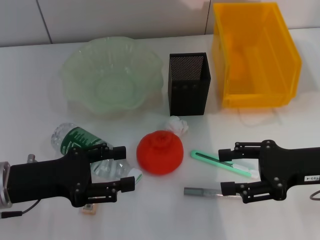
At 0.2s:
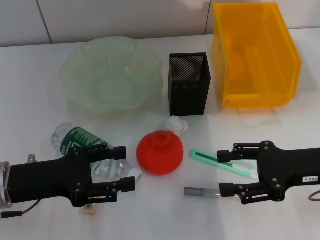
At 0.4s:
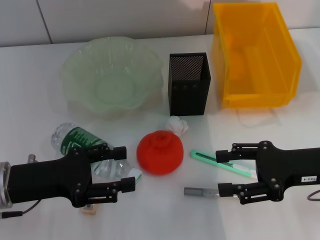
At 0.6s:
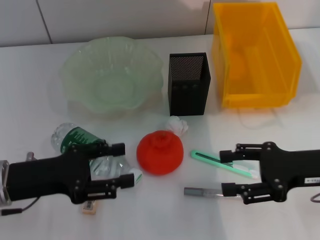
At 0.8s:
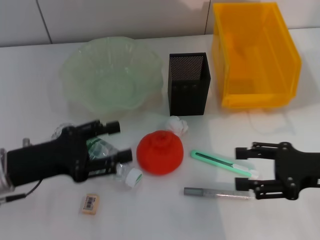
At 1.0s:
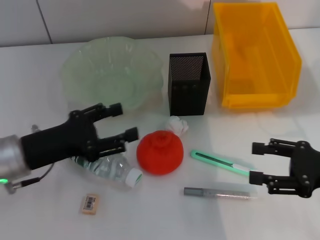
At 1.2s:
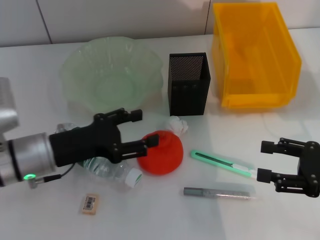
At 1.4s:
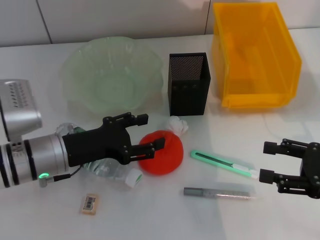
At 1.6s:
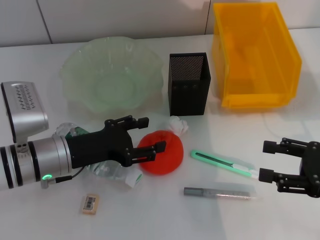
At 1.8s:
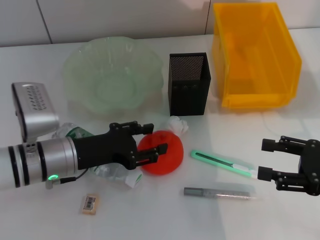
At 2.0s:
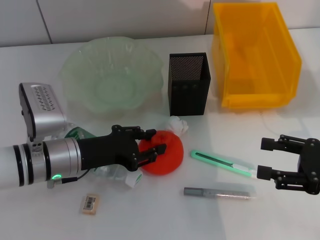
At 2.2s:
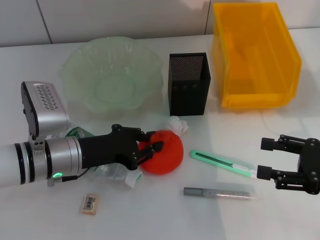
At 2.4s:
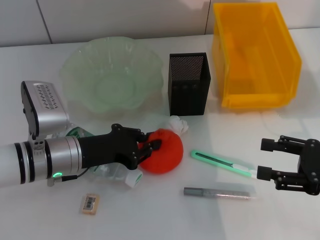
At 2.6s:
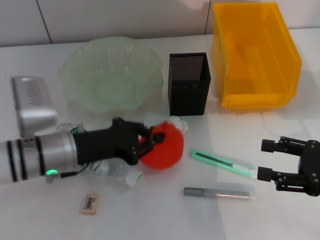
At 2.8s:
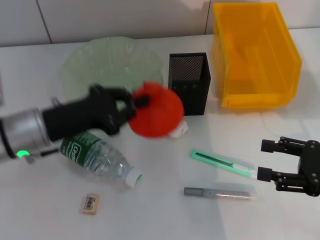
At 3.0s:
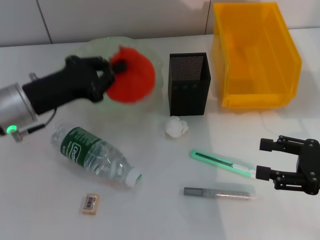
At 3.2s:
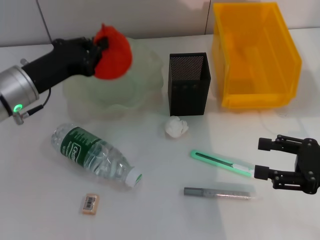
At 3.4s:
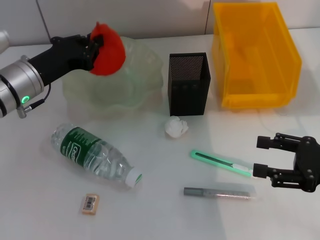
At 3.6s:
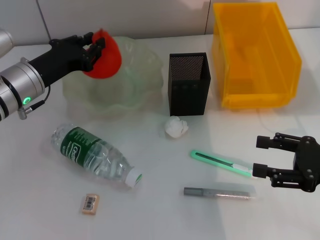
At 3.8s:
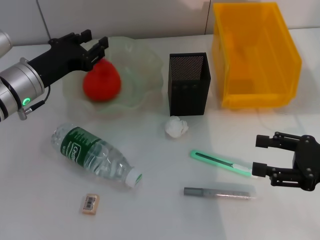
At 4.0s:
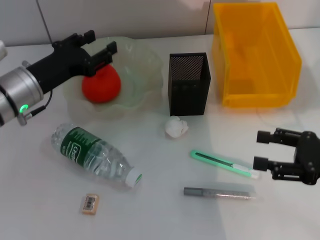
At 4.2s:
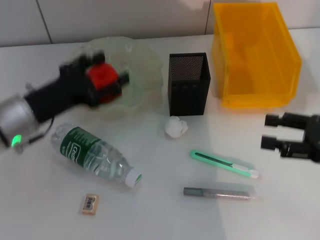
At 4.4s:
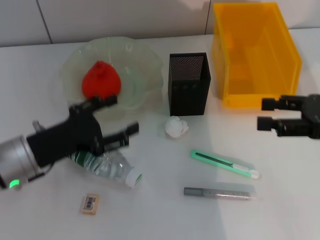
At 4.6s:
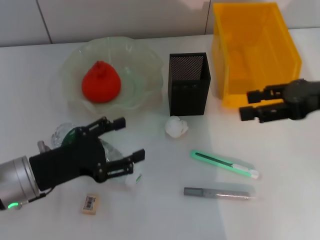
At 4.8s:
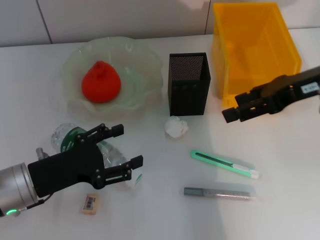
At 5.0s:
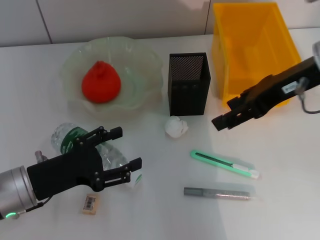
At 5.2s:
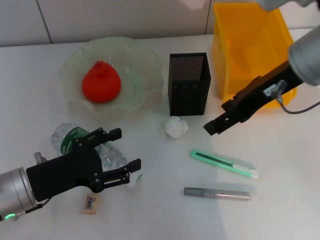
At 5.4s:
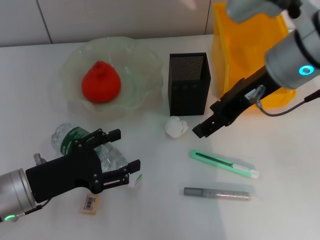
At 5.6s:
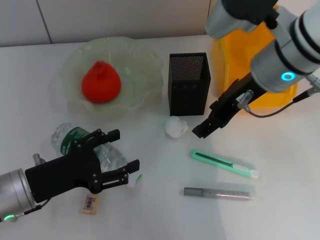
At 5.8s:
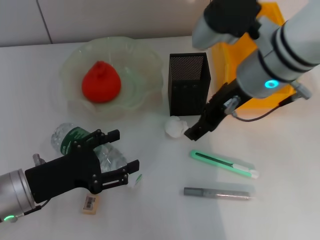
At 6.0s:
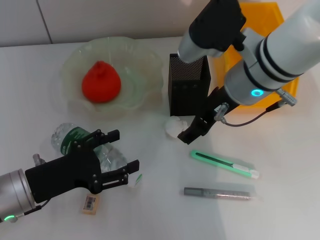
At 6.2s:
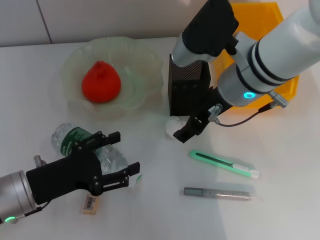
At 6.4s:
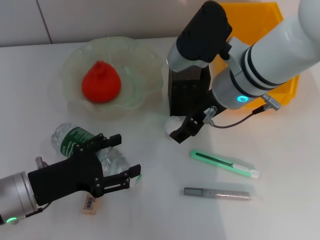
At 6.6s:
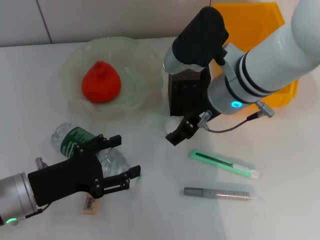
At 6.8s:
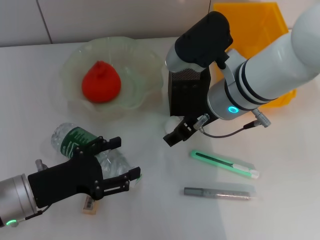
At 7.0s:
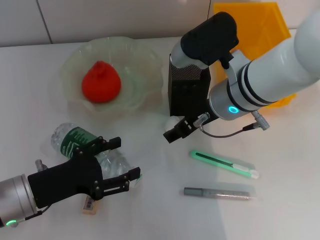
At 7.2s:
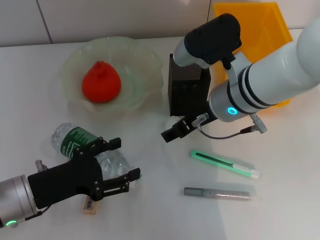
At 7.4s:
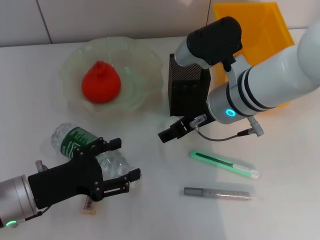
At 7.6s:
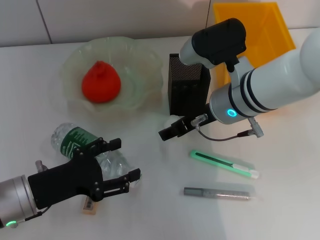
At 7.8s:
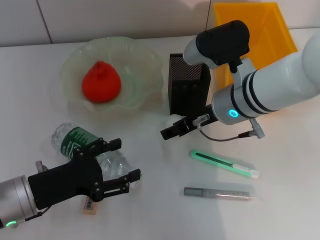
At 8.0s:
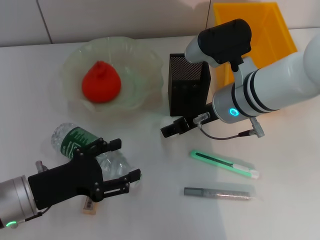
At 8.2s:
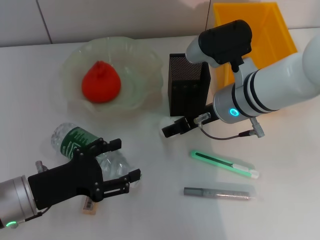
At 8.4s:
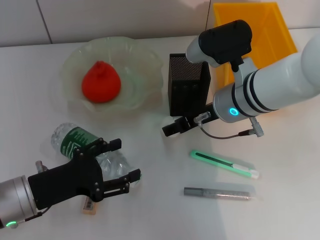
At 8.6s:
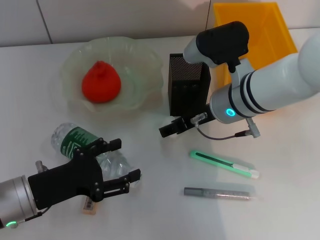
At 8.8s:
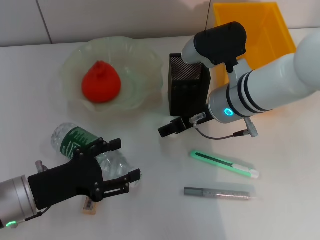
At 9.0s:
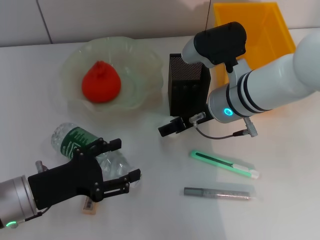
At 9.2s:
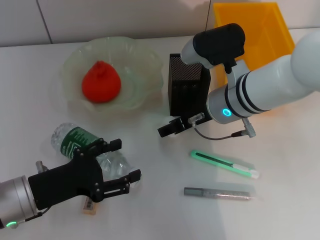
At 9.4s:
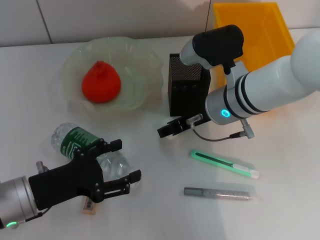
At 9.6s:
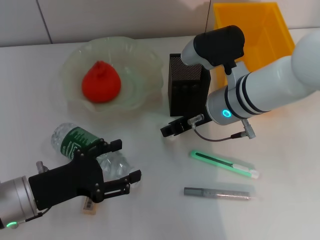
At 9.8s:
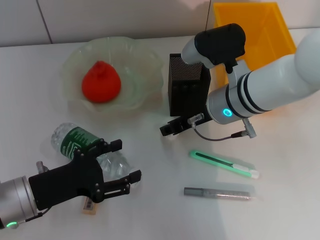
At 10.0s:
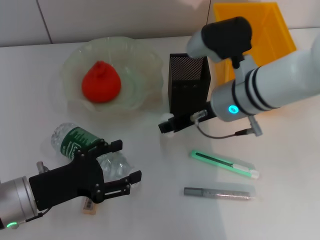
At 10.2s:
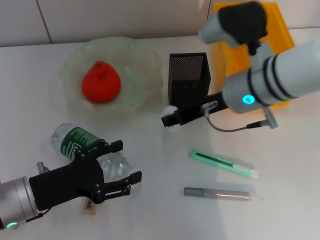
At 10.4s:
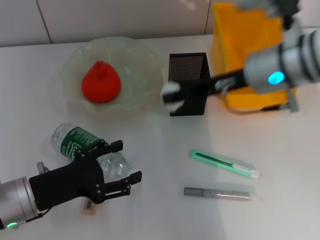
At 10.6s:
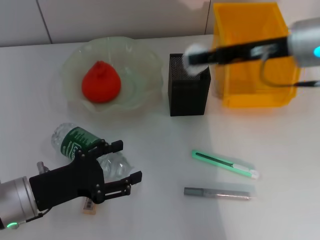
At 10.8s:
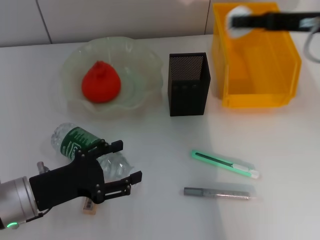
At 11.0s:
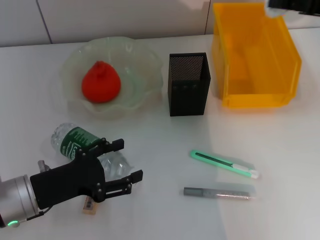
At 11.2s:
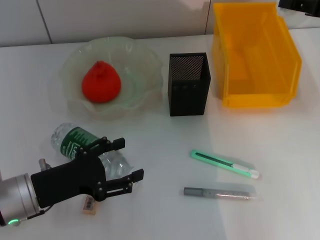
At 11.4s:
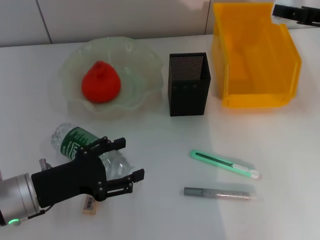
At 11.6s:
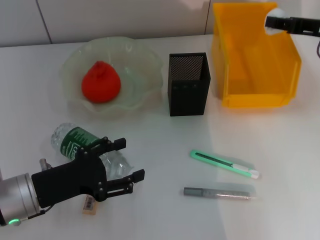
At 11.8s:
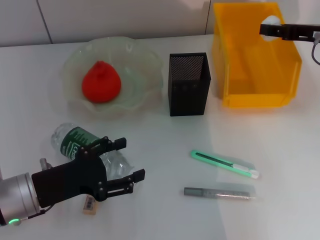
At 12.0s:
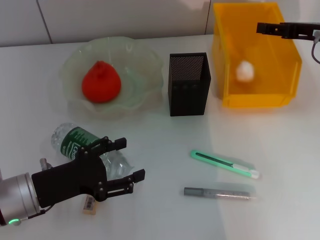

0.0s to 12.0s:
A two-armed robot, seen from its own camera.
Step, 0.0s to 2.2s: Grab the orange with the left hand.
Step, 2.6s to 3.8s: Place the orange into the fruit bowl with the left hand.
Step, 4.0s to 9.6s: Grab the paper ball with the right hand.
0.0s to 1.6s: Both grippers travel together to the right, some 5 cm.
1.6s to 3.0s: The left gripper goes some 5 cm upward, and closes its fingers.
3.0s to 4.4s: The left gripper heads backward, covering about 5 cm, and opens up, while the right gripper moves upward and forward, some 10 cm.
4.4s to 6.0s: The right gripper goes some 20 cm to the left.
6.0s to 7.6s: The right gripper is displaced downward by approximately 5 cm.
7.6s to 9.0s: The grippers move only a little.
9.0s to 10.4s: The right gripper goes about 10 cm upward, and closes up.
10.4s to 12.0s: The right gripper goes roughly 15 cm to the right.

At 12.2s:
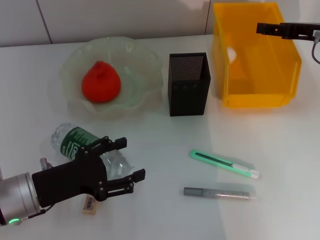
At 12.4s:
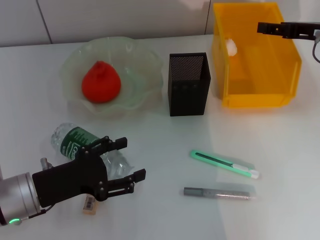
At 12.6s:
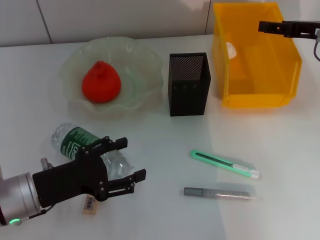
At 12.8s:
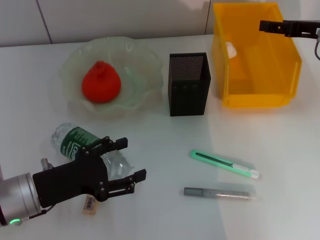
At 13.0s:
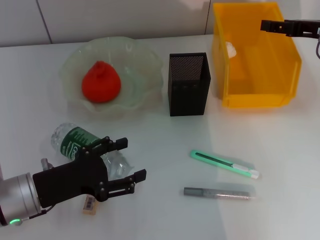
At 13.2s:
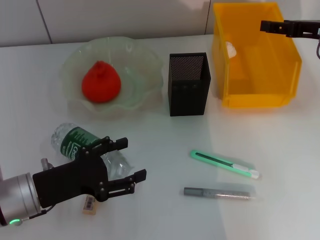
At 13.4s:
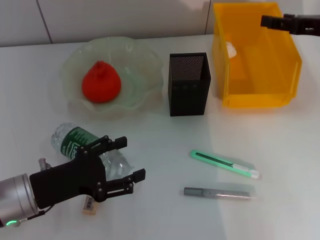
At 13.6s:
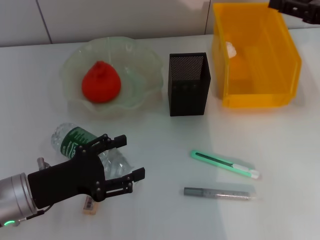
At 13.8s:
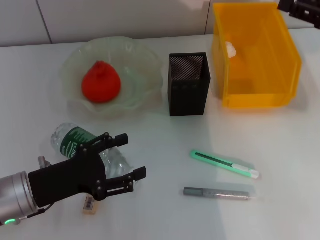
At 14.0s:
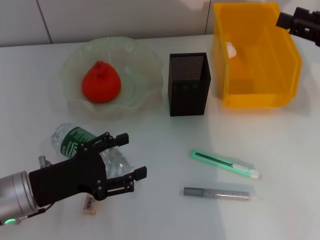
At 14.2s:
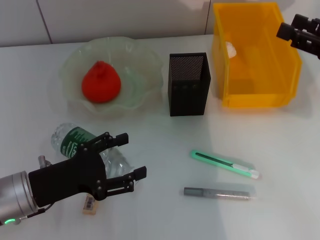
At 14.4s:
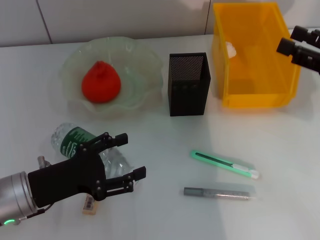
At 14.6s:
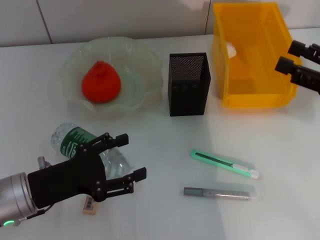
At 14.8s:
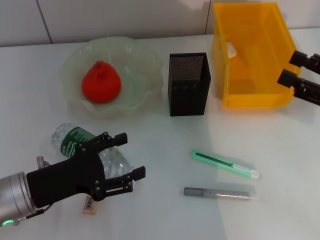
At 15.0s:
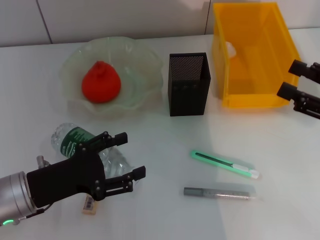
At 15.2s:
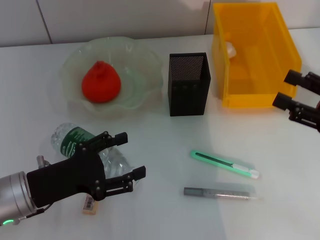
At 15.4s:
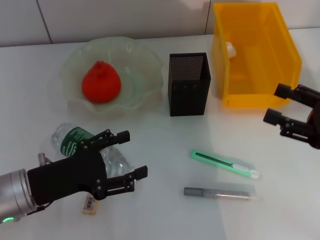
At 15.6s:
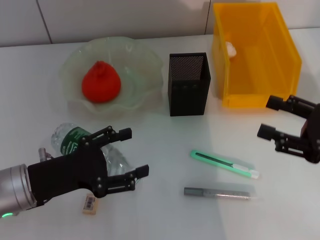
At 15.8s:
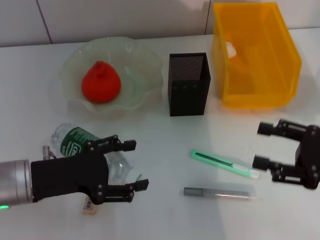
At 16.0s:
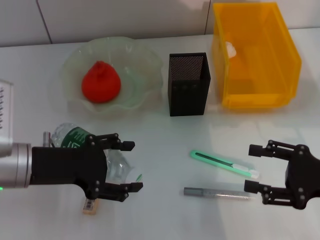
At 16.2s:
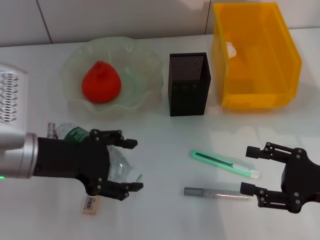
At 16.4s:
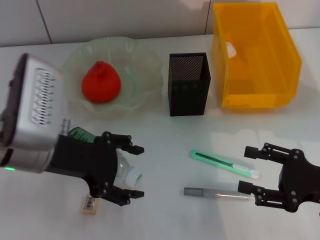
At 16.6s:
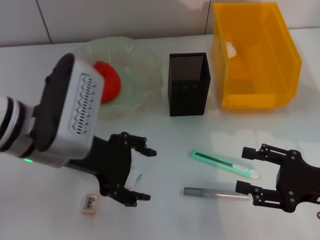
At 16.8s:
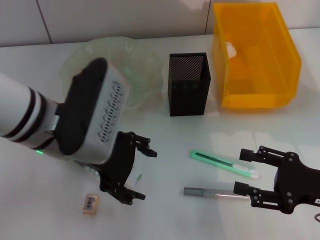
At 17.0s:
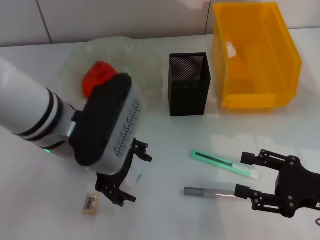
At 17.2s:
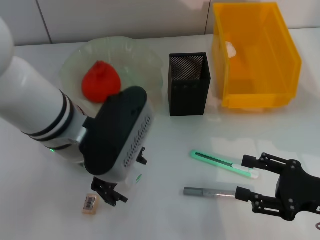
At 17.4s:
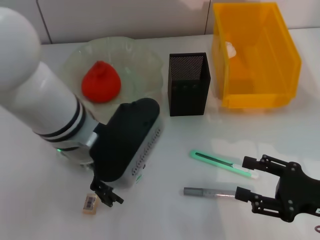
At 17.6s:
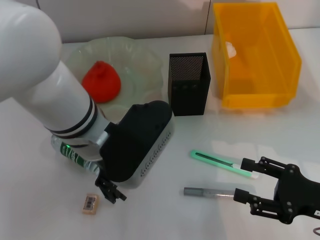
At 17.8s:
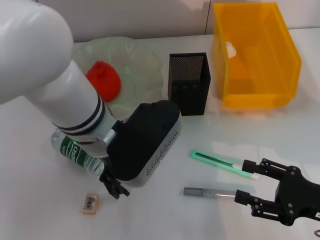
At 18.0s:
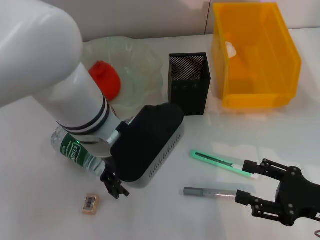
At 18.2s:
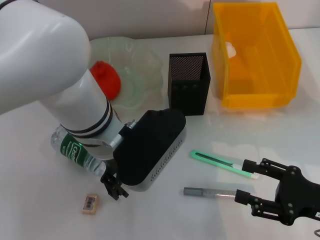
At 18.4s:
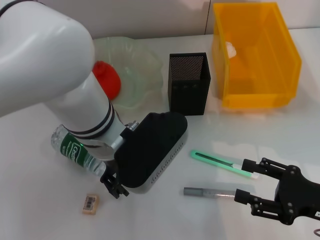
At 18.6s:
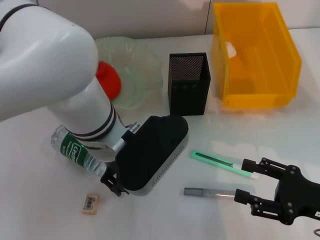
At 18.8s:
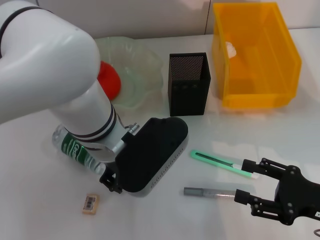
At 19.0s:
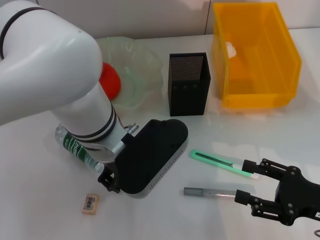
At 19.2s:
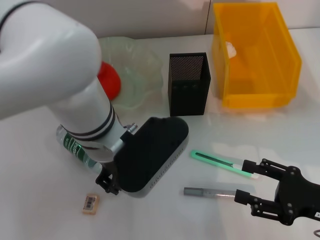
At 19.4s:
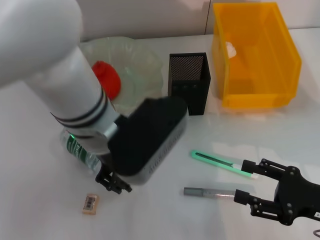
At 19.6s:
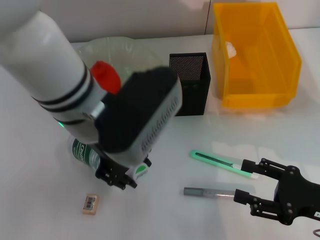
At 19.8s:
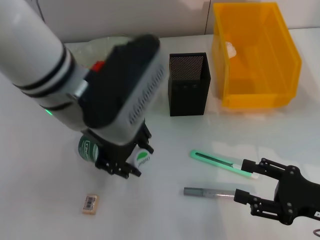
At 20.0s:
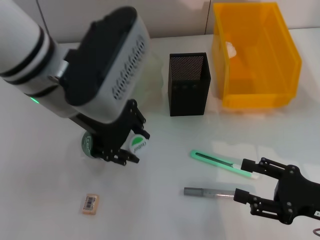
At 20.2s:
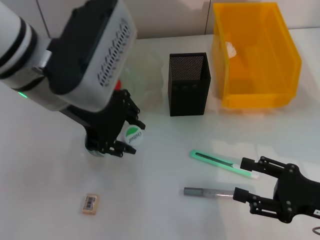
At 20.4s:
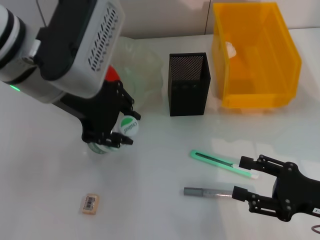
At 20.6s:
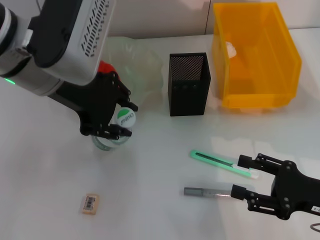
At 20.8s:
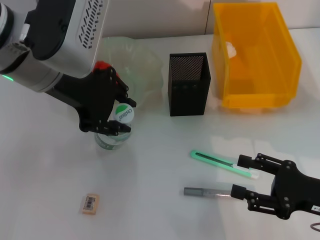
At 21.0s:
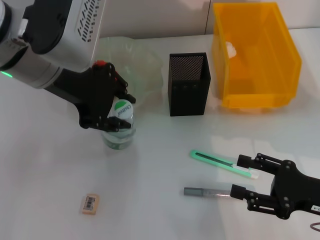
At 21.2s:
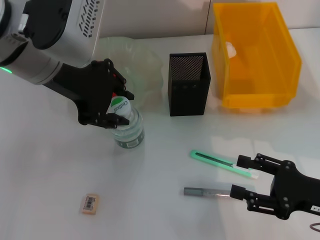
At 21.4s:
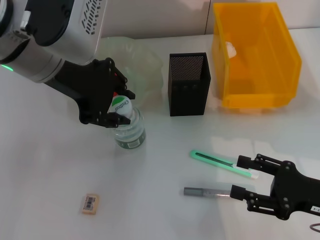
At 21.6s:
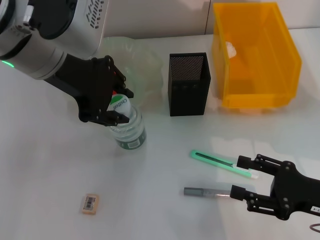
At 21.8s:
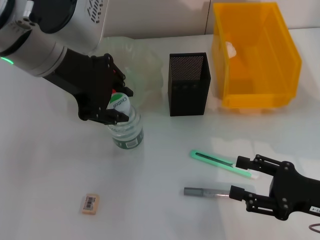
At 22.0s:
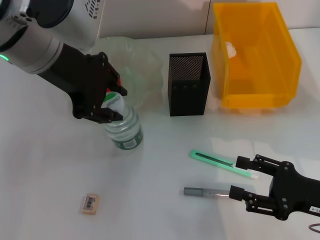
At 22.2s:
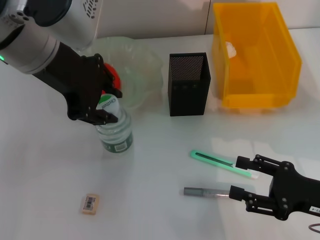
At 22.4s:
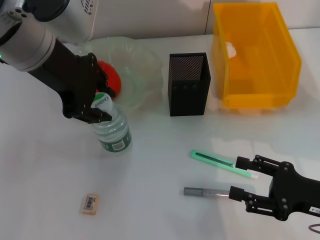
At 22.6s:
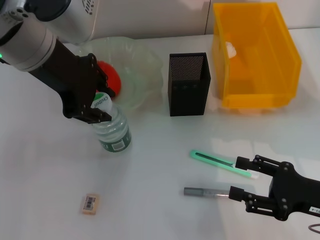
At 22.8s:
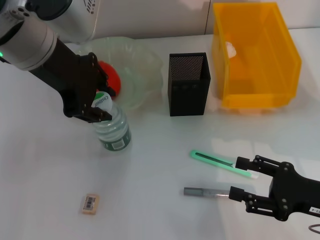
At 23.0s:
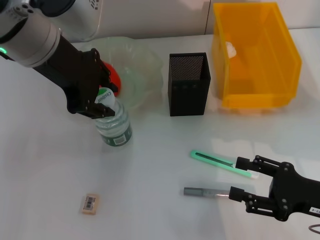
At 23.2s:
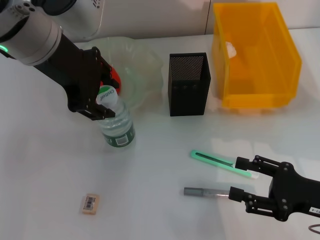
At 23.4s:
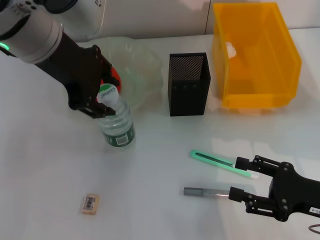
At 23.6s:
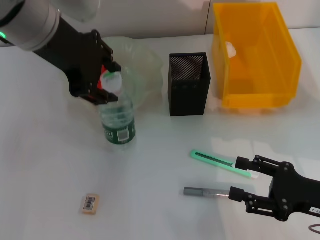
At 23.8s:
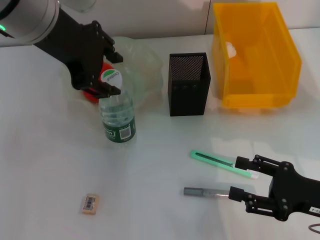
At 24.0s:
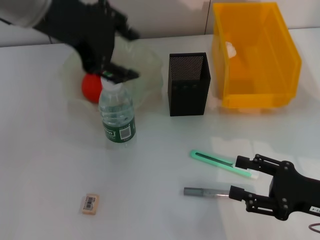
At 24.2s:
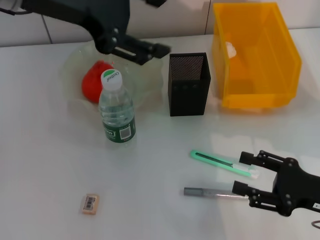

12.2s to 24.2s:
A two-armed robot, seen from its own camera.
Step, 12.4s to 18.8s: Grab the water bottle with the left hand.
Step, 19.0s to 23.6s: Place the water bottle on the table with the left hand.
12.2s to 13.8s: The right gripper moves backward, approximately 5 cm.
13.8s to 15.2s: The right gripper heads backward and downward, covering approximately 10 cm.
15.2s to 16.6s: The right gripper goes roughly 5 cm downward. The left gripper travels upward and to the right by approximately 15 cm.
16.6s to 18.2s: The left gripper is displaced to the right by approximately 10 cm.
18.2s to 19.8s: The left gripper shifts some 5 cm upward, and closes.
19.8s to 21.2s: The left gripper shifts by some 5 cm.
21.2s to 22.6s: The grippers make only small movements.
22.6s to 24.2s: The left gripper is displaced upward by approximately 5 cm, and opens up.
